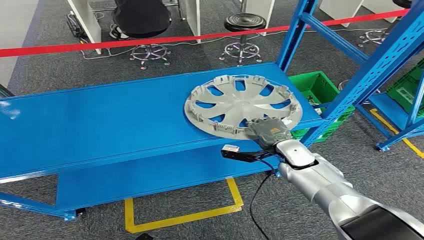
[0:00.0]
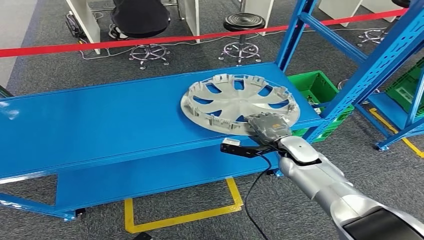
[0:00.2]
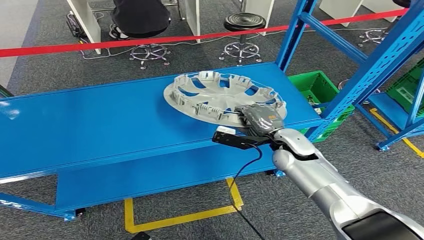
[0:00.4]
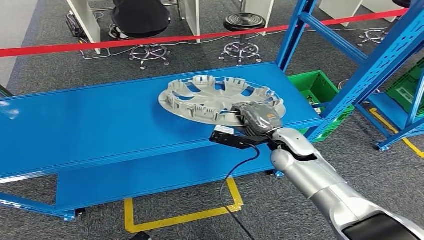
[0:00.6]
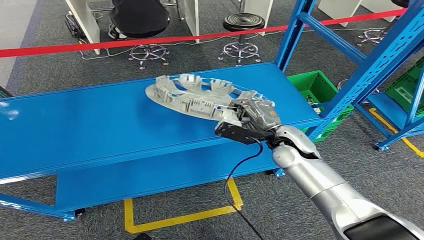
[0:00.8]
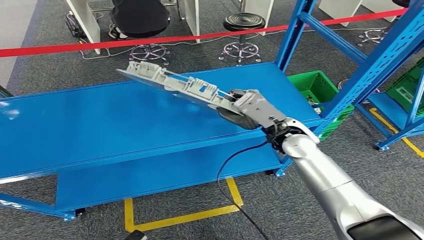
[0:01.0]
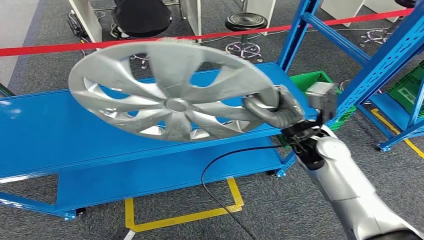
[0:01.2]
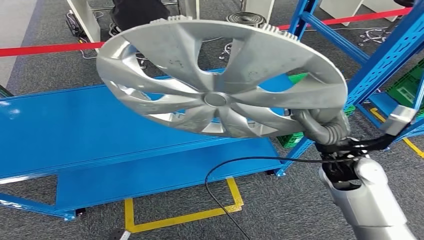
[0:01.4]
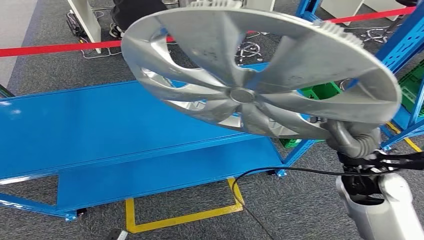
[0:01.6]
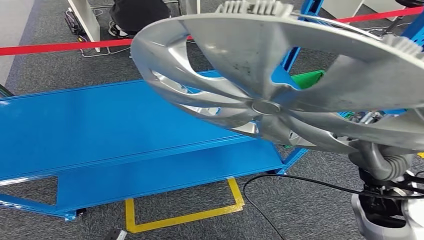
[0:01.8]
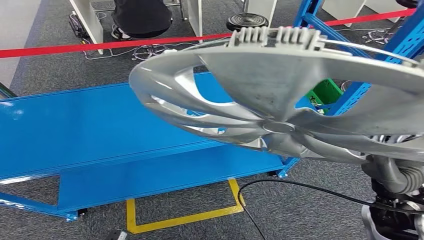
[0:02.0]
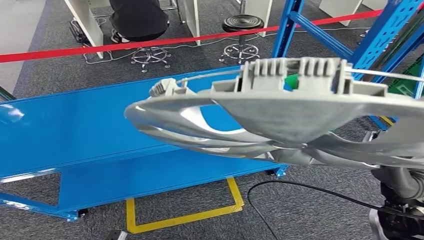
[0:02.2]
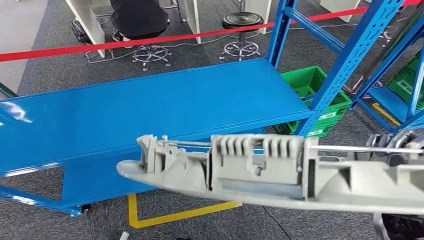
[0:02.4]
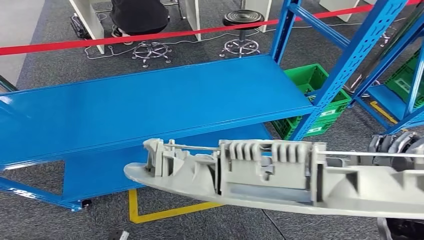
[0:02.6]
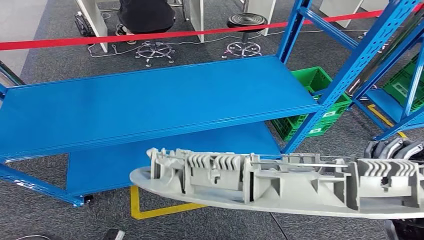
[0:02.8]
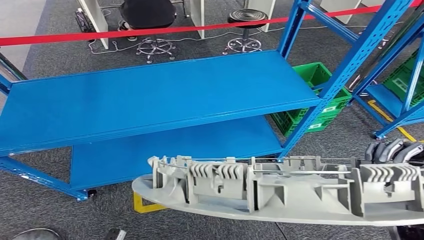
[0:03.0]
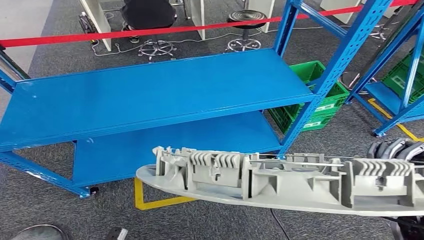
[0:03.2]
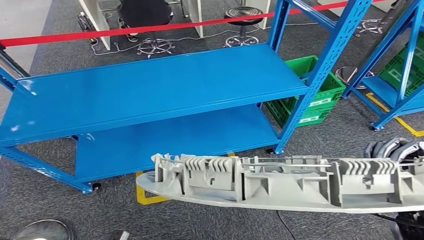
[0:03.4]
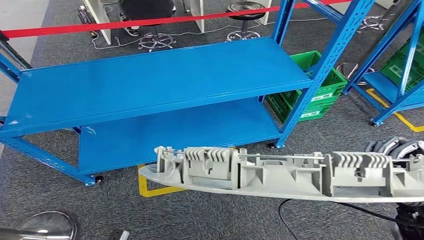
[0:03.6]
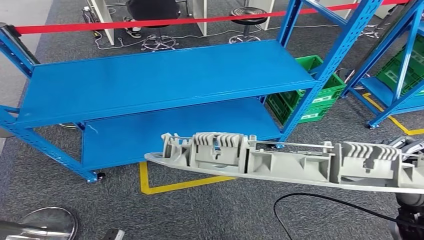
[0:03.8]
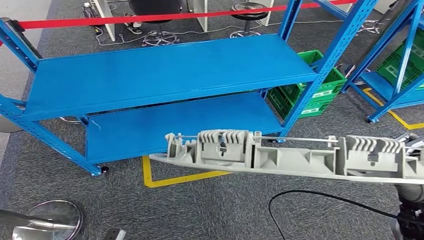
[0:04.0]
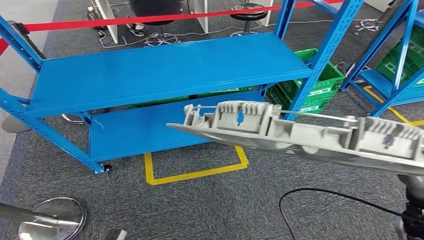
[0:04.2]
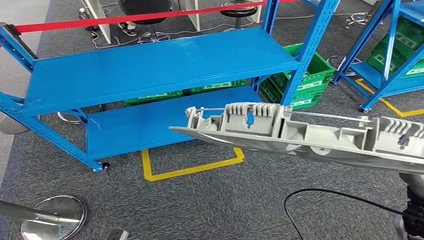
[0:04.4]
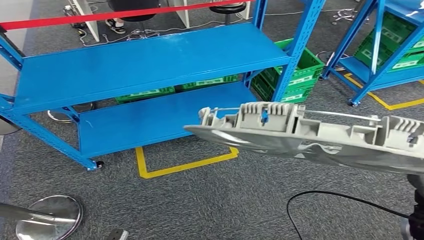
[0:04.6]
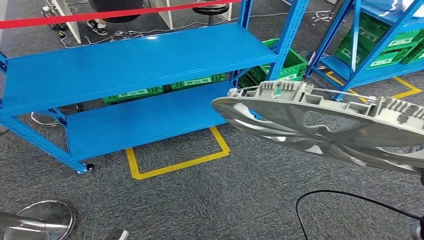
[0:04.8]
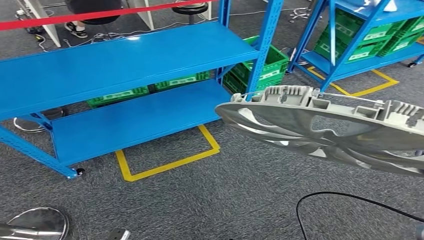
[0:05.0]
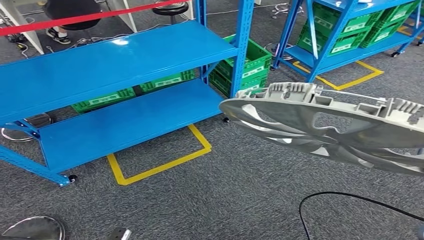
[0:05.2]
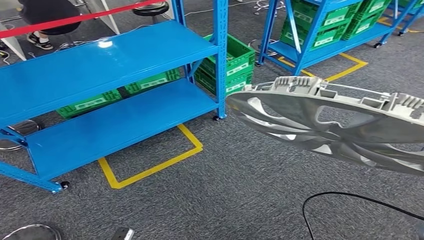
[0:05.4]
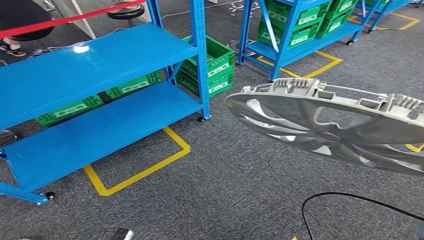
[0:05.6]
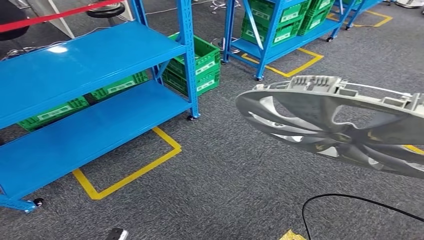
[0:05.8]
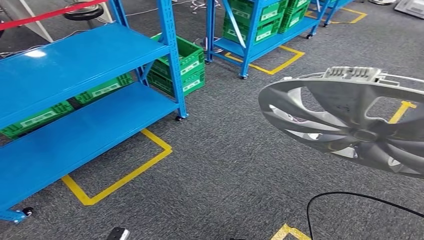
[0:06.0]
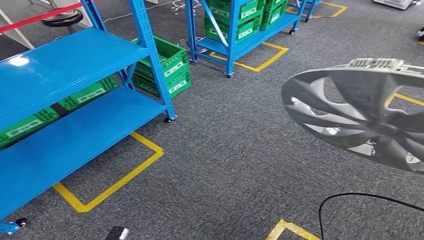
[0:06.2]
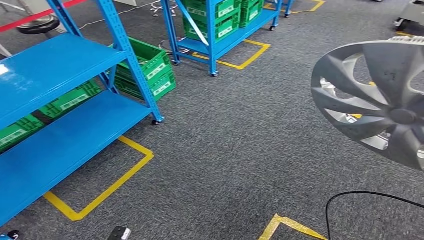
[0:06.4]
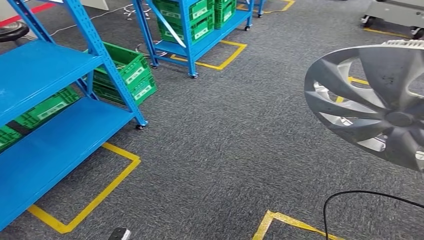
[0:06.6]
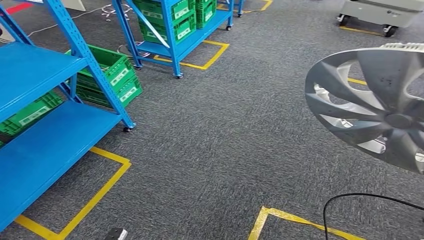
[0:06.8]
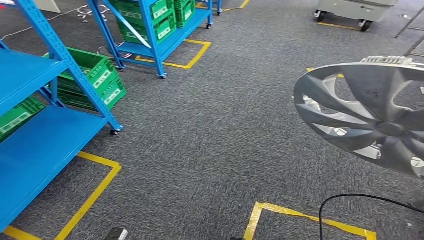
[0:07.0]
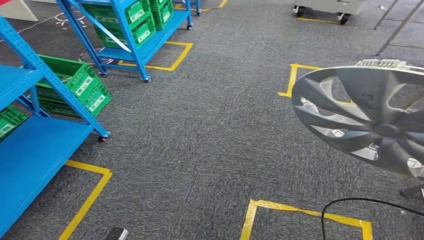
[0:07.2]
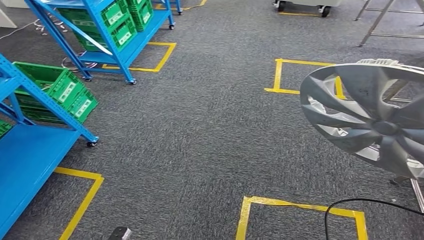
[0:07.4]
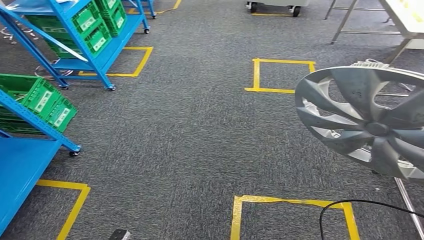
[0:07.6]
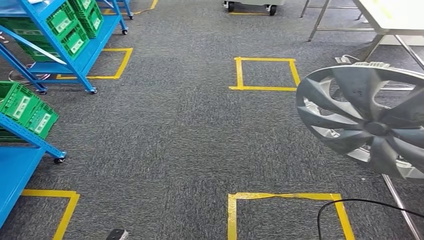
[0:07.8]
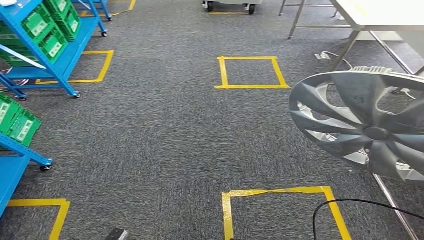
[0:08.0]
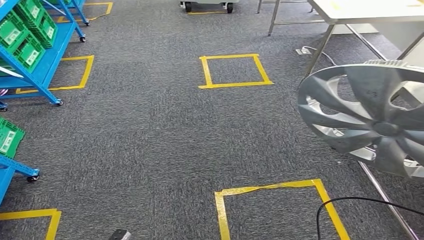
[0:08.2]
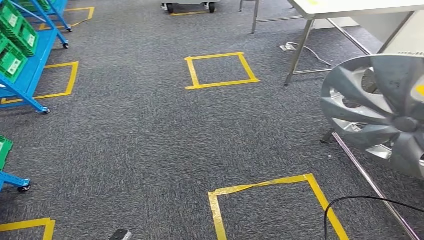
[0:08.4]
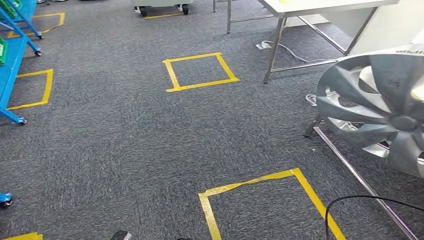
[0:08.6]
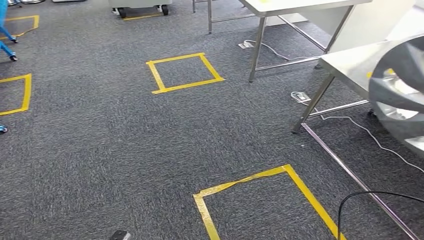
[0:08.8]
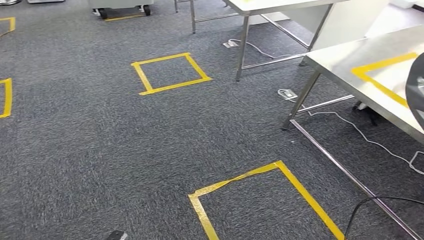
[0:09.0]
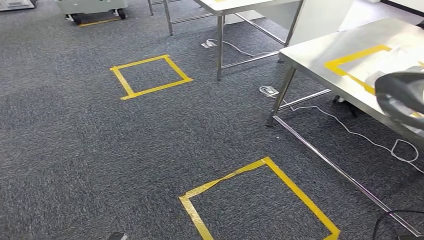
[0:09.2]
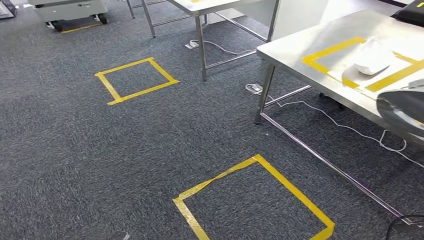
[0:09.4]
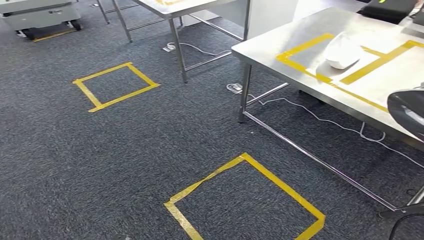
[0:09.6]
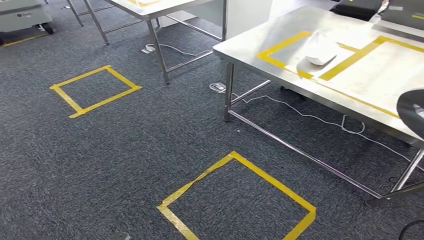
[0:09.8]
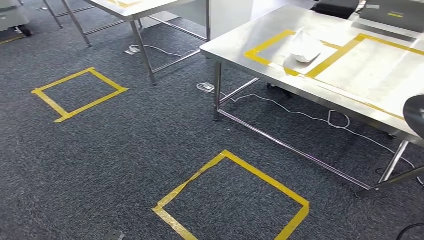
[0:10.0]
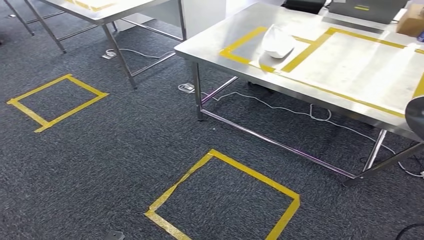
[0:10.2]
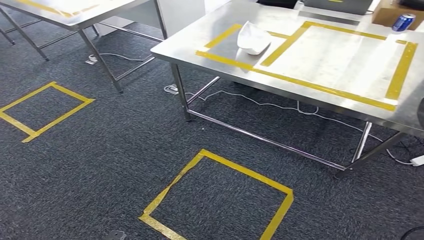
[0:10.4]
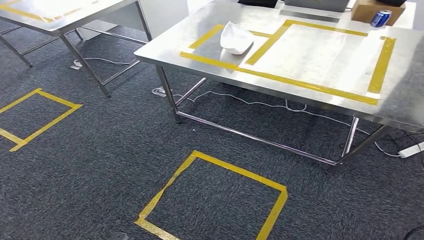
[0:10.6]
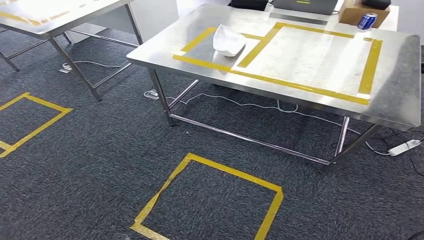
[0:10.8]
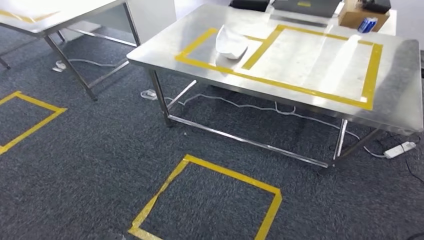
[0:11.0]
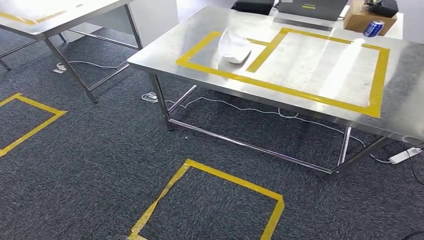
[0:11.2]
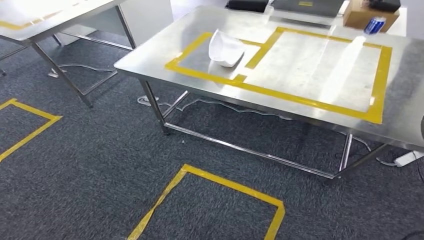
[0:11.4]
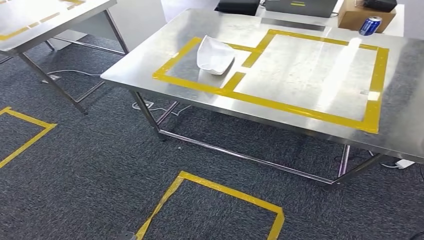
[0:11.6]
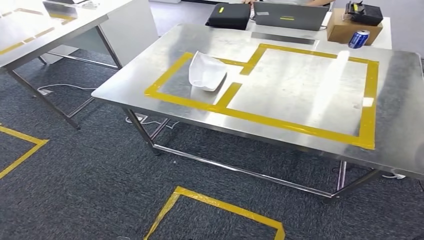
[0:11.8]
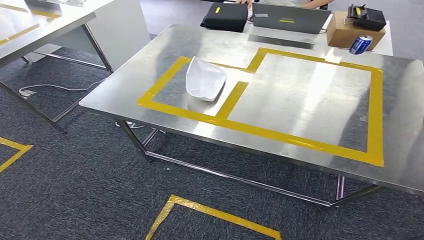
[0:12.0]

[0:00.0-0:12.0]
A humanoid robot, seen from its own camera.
Step, 0:00.0 to 0:02.6: Pick up the small component from the shelf.
Step, 0:02.8 to 0:11.2: Move the small component to the workbench.

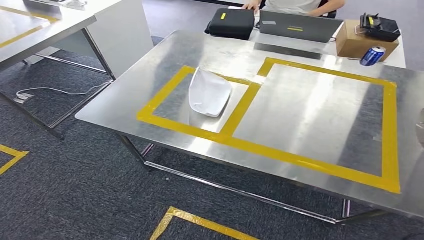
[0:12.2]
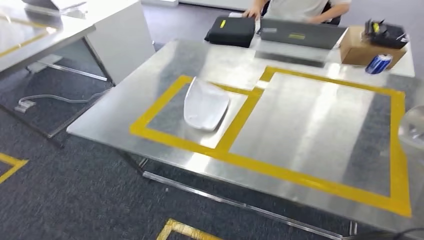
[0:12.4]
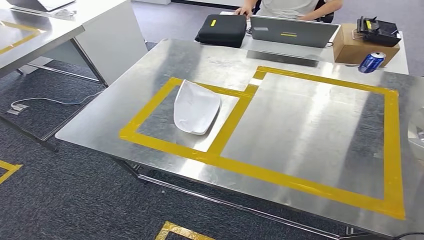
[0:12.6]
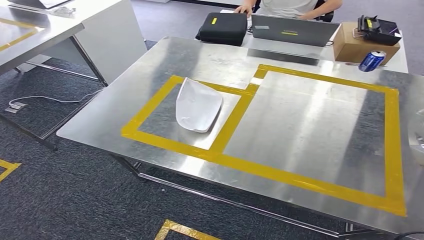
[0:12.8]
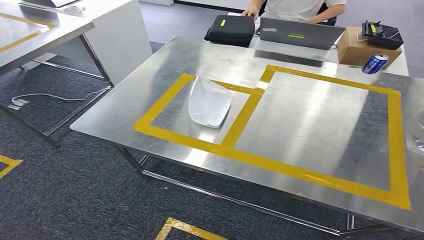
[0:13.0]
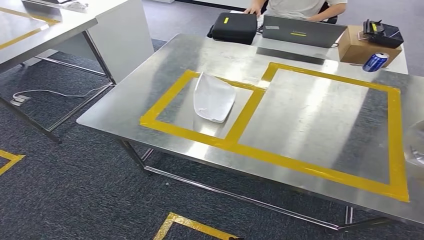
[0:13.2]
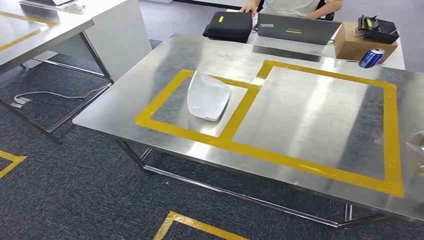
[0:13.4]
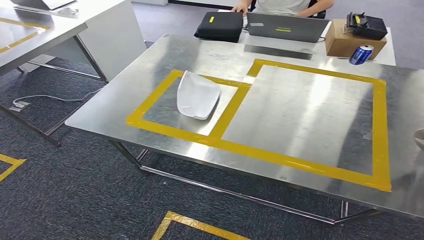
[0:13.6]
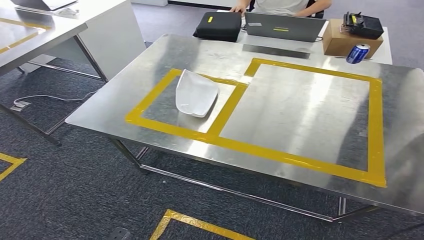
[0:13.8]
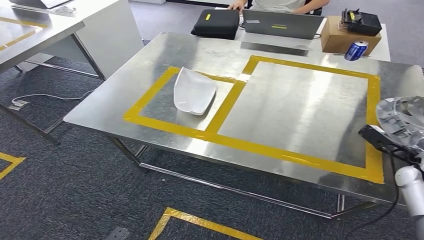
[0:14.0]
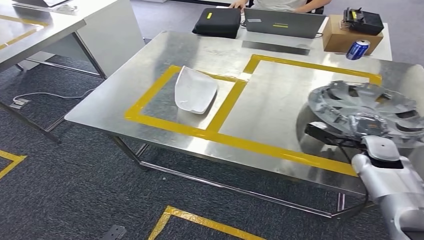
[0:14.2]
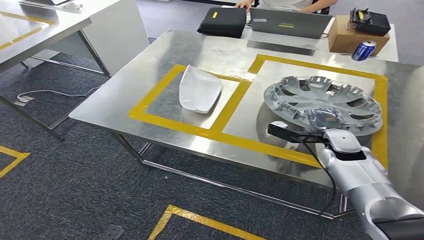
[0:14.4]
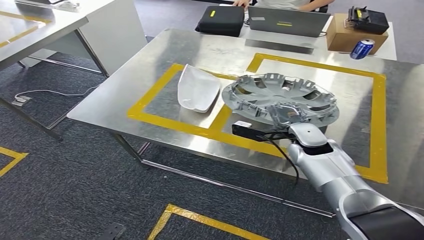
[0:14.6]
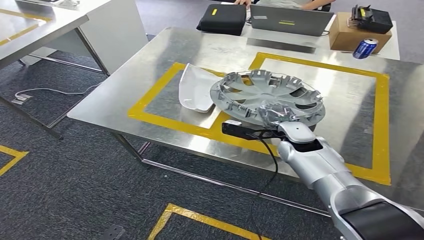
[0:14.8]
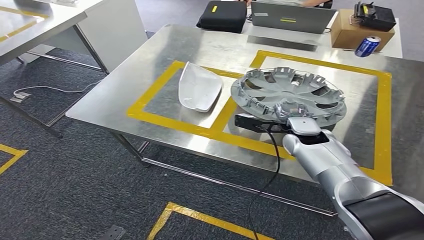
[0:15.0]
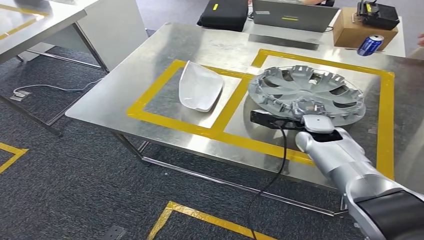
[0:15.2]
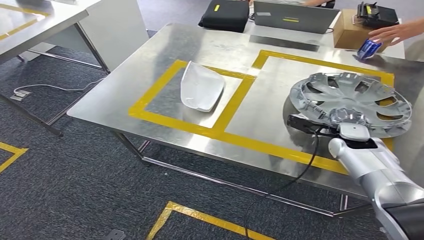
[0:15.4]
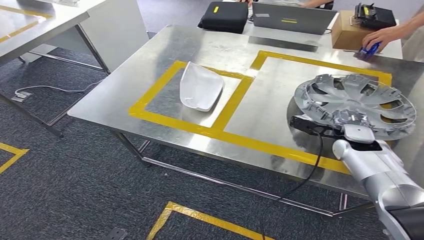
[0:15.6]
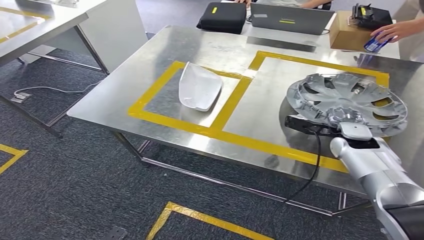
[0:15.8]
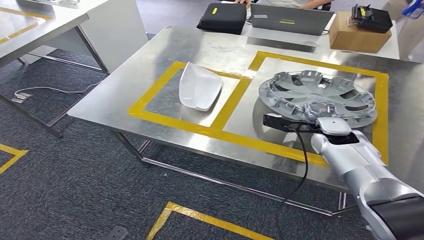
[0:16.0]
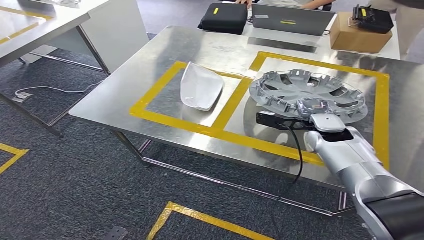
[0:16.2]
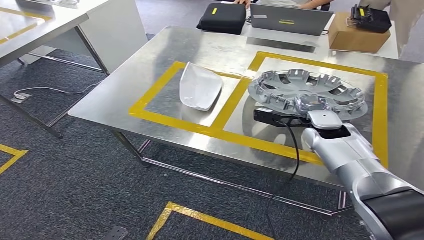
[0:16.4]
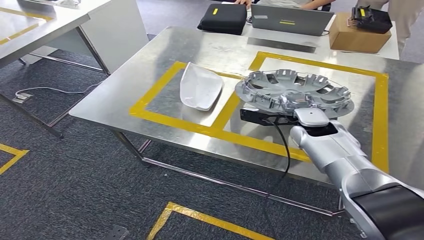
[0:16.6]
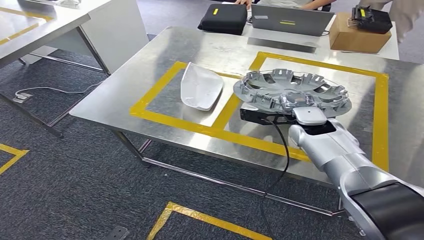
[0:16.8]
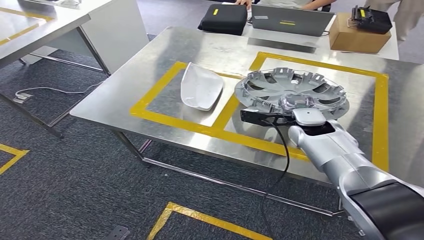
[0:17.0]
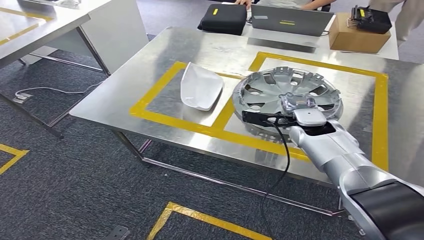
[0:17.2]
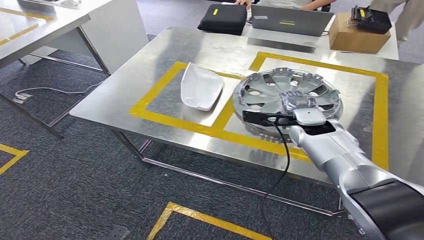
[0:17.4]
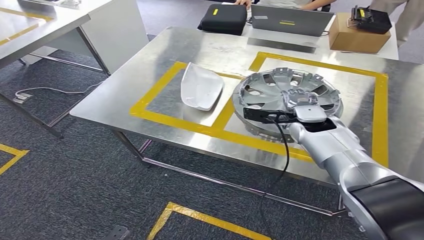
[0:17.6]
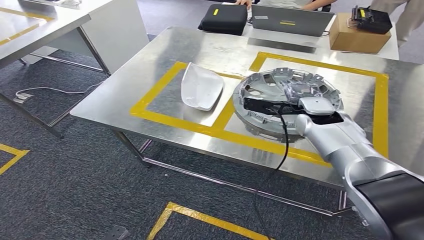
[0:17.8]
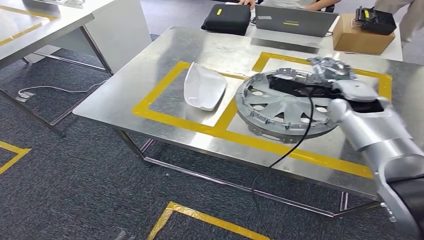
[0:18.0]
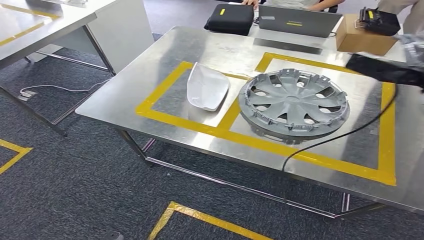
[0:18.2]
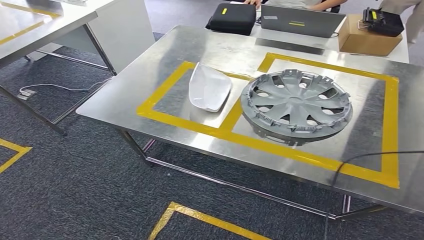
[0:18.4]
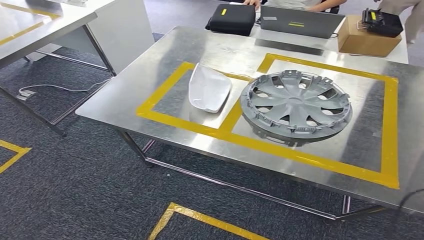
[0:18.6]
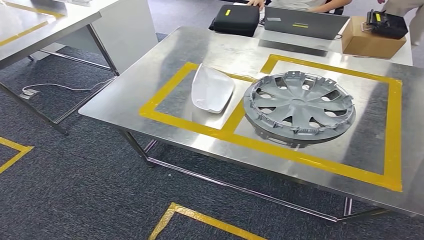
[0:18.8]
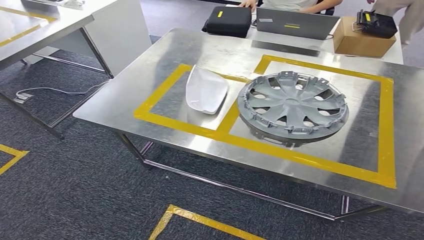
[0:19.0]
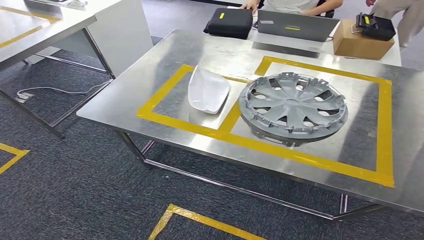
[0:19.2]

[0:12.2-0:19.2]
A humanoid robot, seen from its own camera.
0:16.4 to 0:17.8: The hands make only small movements.
